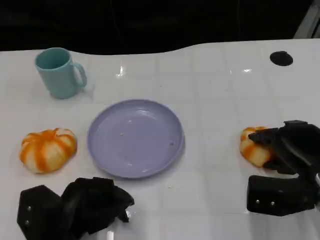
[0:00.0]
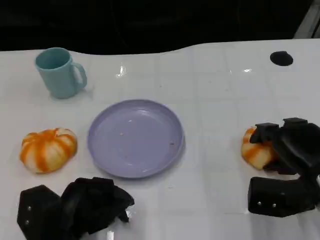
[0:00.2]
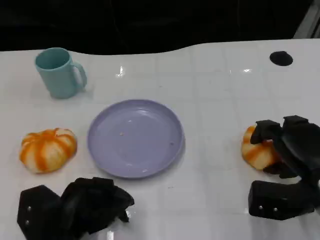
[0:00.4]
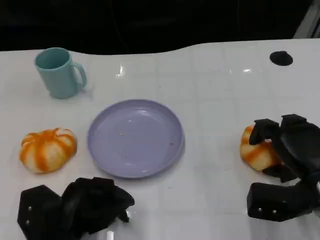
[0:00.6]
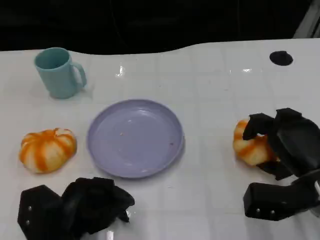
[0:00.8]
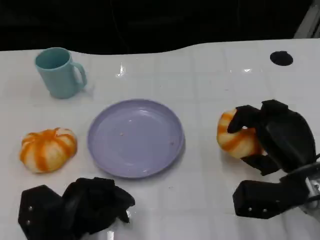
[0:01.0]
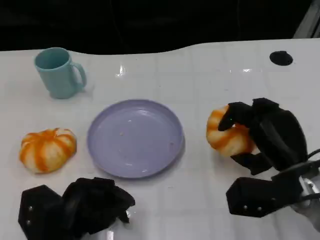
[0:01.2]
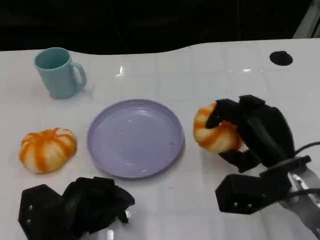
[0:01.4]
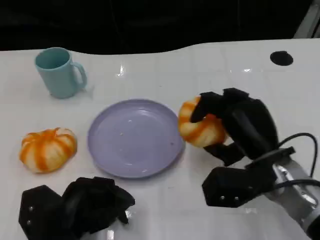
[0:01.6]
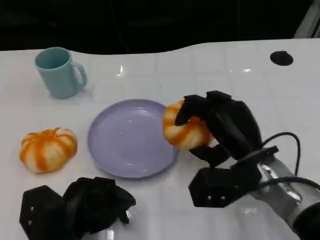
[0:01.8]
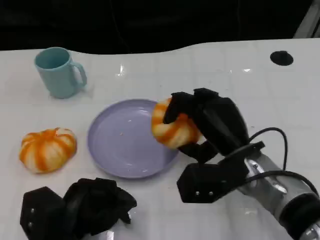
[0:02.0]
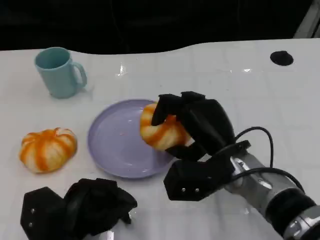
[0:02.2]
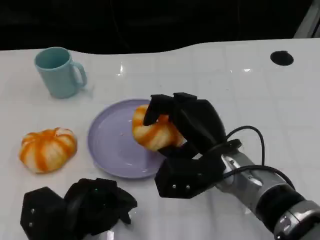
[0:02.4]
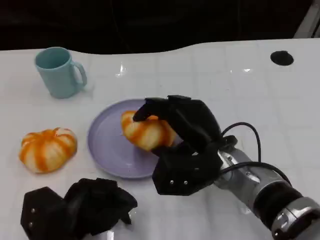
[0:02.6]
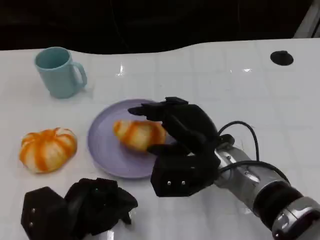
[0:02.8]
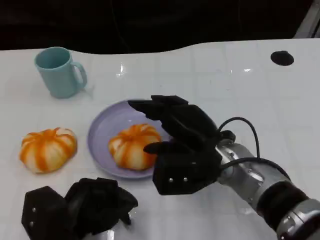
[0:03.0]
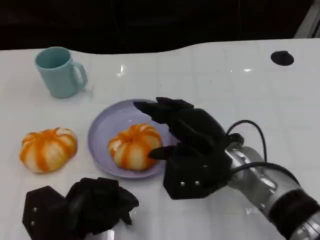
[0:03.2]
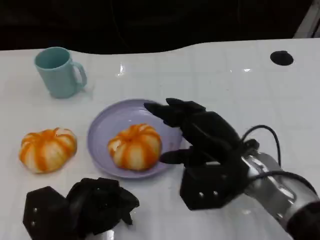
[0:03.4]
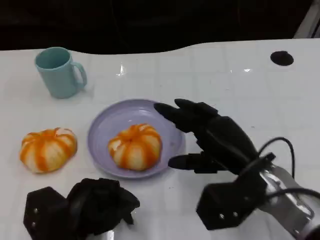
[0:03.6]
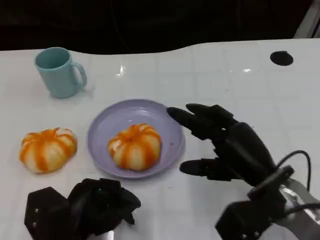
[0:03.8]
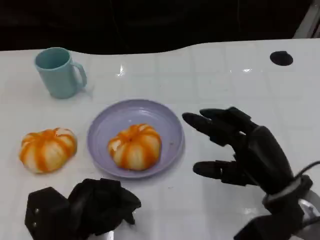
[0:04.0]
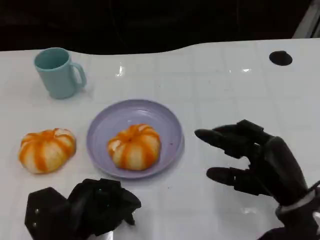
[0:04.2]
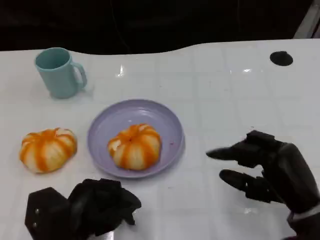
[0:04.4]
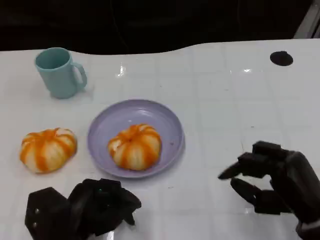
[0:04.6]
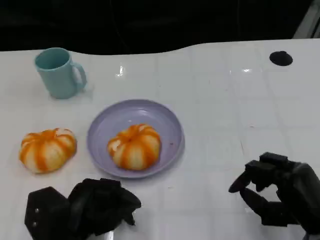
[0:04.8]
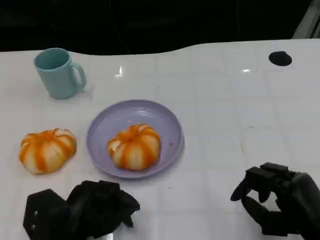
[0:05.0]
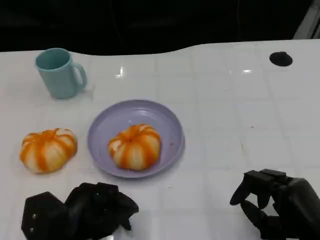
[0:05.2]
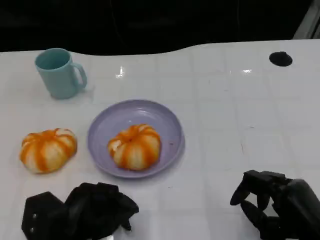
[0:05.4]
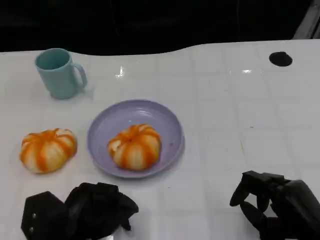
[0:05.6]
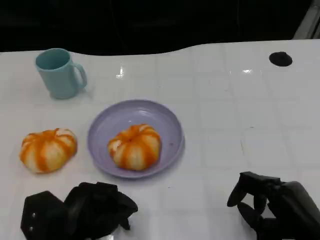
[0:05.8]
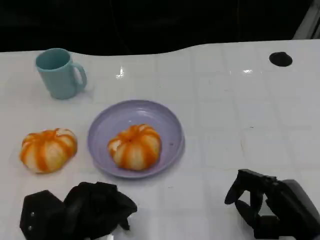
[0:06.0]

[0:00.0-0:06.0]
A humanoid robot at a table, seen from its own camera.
Task of the whole recording: Grasp the bread from the table and place it into the plate.
0:00.0 to 0:01.6: The right hand is displaced to the left by some 10 cm.
0:01.6 to 0:03.0: The right hand moves to the left, some 5 cm.
0:03.0 to 0:04.4: The right hand is displaced to the right and backward by approximately 15 cm.
0:04.4 to 0:06.0: The hands stay close to where they were, moving slightly.

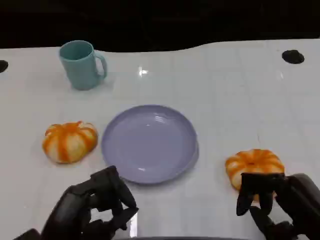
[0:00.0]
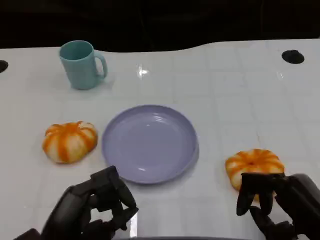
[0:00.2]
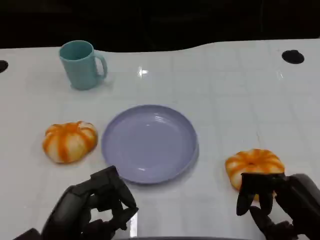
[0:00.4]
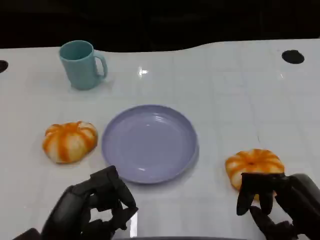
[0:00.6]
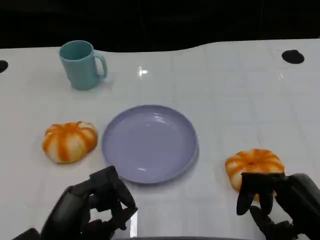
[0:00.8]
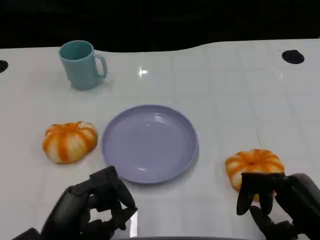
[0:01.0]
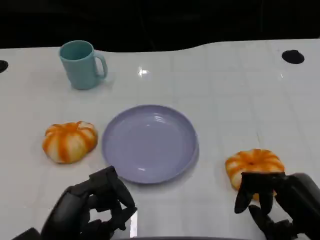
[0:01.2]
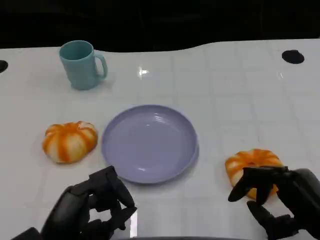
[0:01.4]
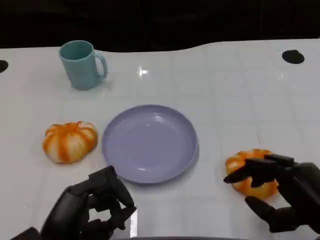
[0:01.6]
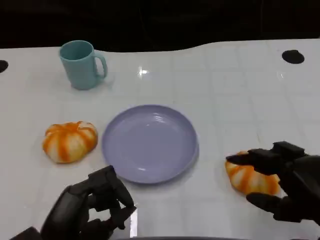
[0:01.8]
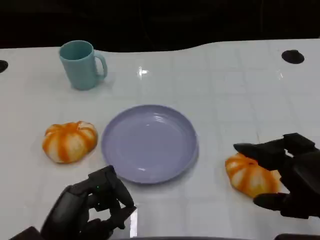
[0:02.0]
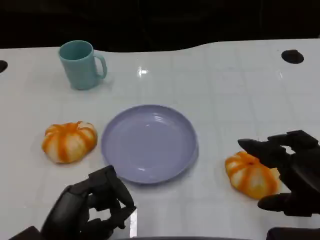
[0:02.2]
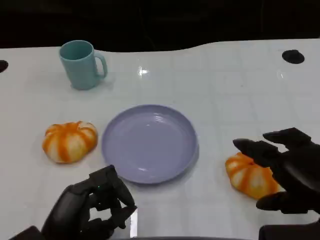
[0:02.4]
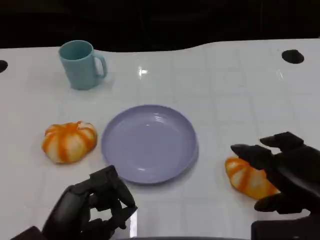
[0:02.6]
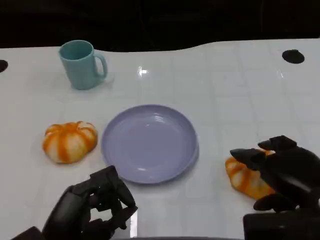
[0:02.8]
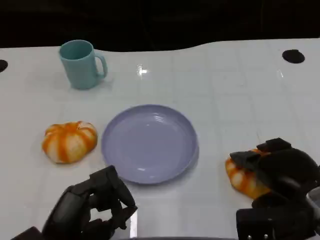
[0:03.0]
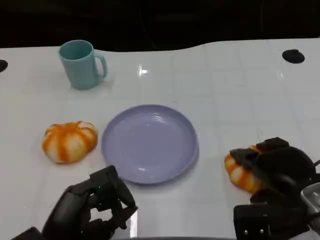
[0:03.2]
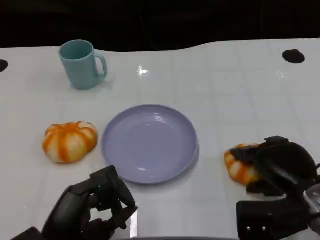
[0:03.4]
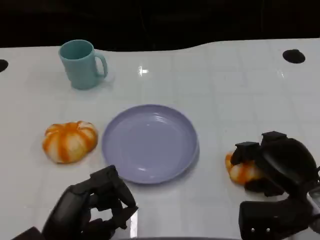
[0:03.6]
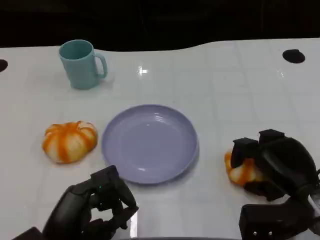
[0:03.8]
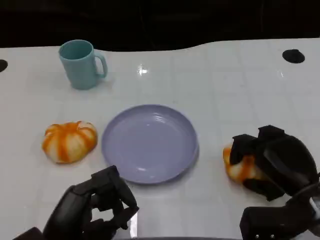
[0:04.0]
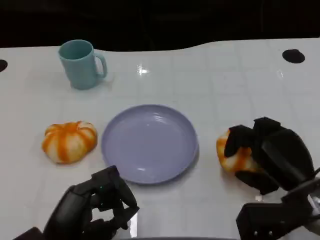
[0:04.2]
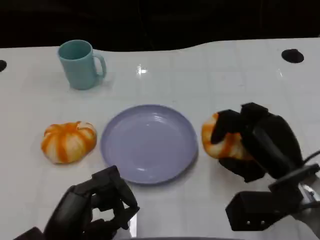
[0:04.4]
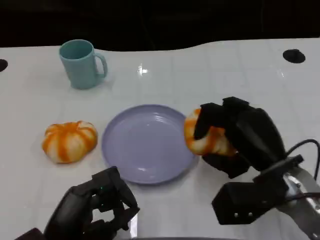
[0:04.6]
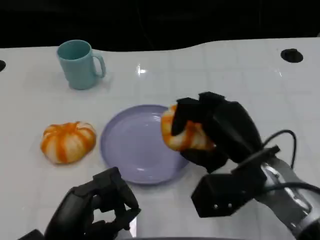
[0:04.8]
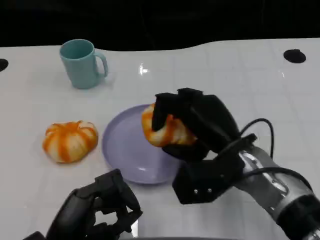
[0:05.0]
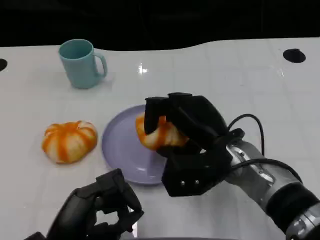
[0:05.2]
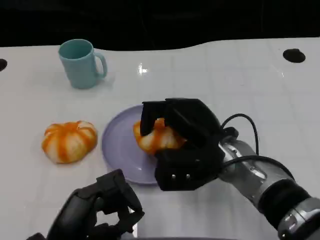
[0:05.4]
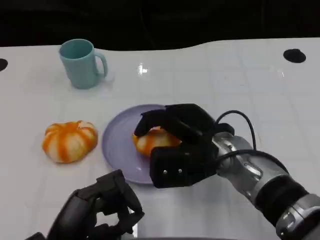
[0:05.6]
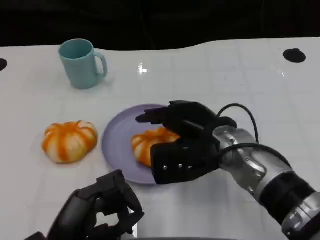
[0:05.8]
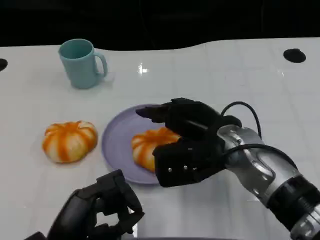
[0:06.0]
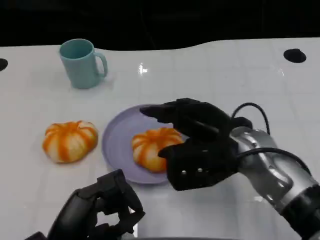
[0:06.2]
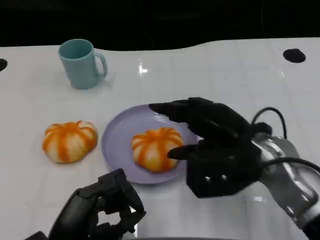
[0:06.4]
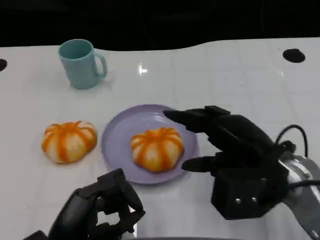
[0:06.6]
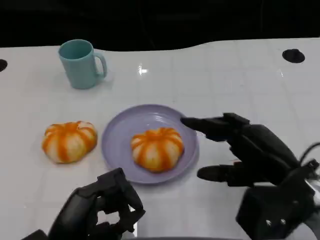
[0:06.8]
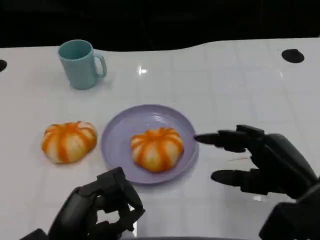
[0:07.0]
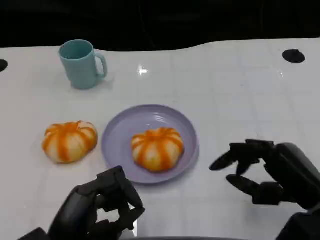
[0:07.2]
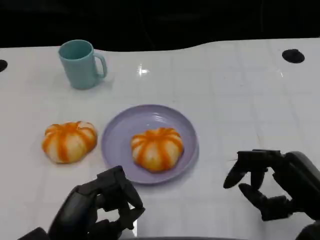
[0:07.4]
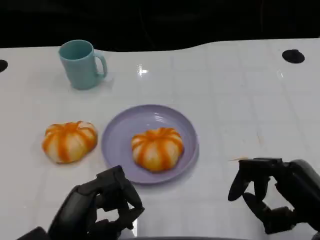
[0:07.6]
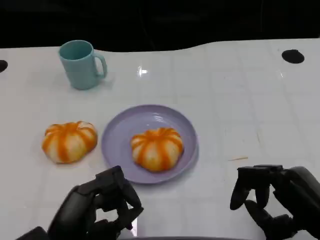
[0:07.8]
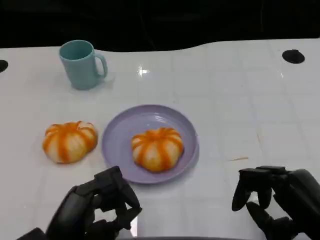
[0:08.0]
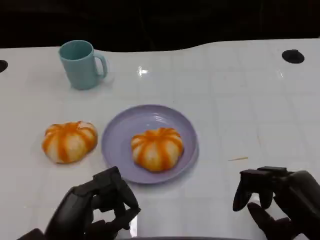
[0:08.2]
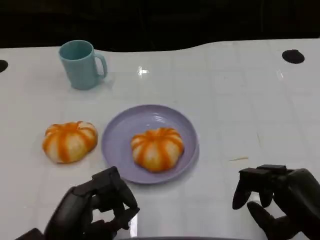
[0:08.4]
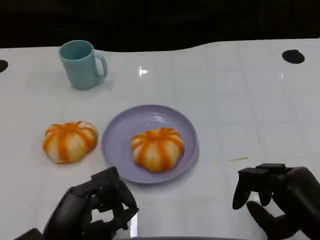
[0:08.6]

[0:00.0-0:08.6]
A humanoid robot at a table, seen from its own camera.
Task of the whole recording: Grasp the bread from the table and place it into the plate.
0:00.0 to 0:01.4: The two hands keep their place.
0:01.4 to 0:02.8: The right hand shifts by approximately 5 cm.
0:02.8 to 0:04.4: The right hand moves roughly 5 cm.
0:04.4 to 0:05.8: The right hand is displaced to the left by some 10 cm.
0:05.8 to 0:07.2: The right hand moves to the right and backward, about 15 cm.
0:07.2 to 0:08.6: The hands make only small movements.

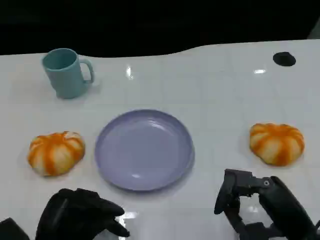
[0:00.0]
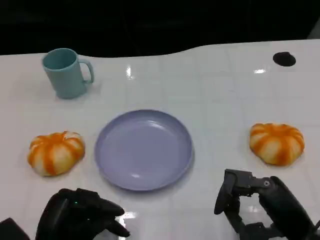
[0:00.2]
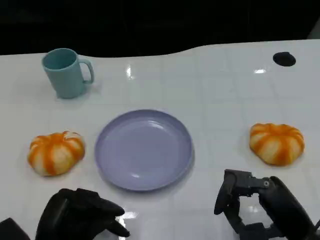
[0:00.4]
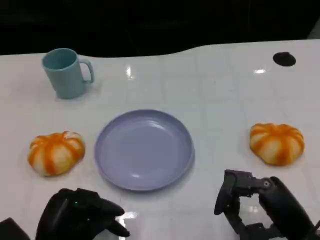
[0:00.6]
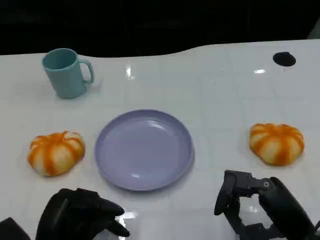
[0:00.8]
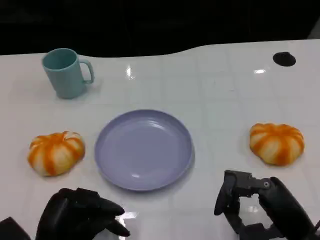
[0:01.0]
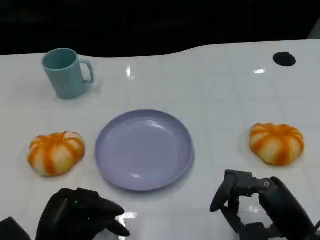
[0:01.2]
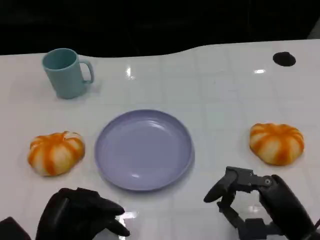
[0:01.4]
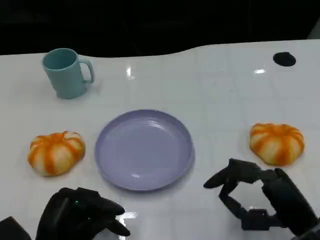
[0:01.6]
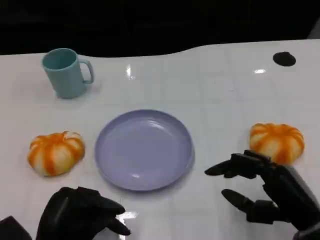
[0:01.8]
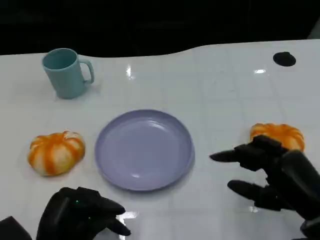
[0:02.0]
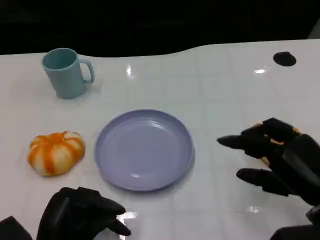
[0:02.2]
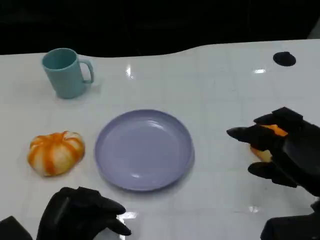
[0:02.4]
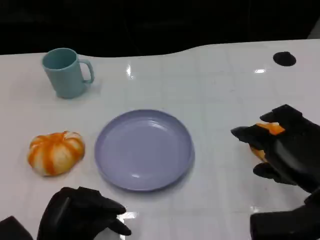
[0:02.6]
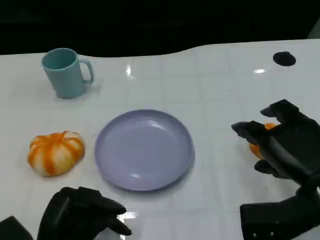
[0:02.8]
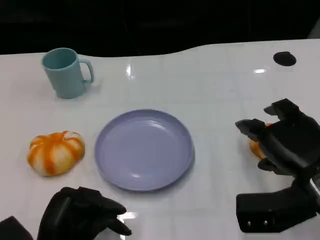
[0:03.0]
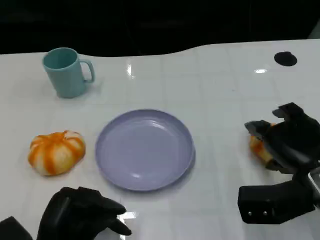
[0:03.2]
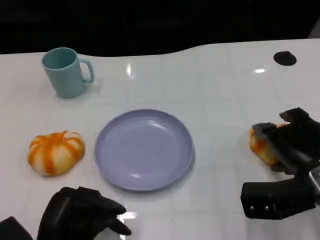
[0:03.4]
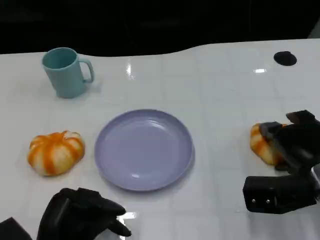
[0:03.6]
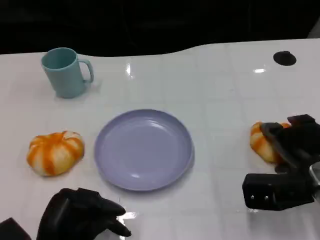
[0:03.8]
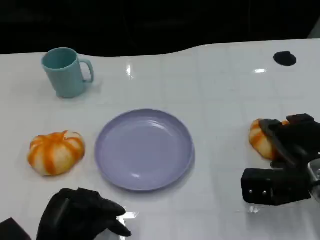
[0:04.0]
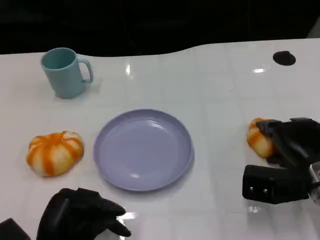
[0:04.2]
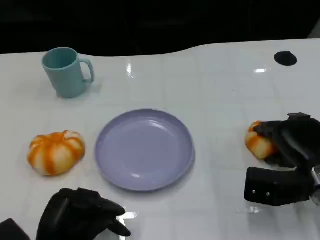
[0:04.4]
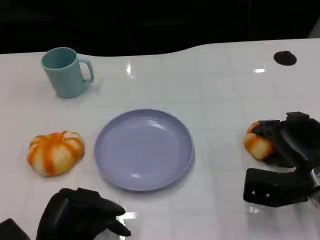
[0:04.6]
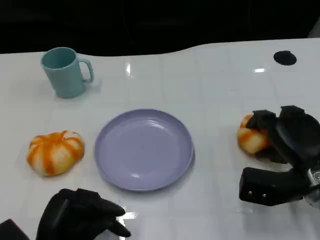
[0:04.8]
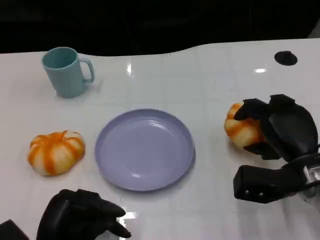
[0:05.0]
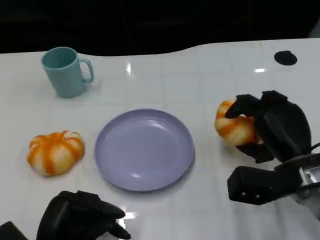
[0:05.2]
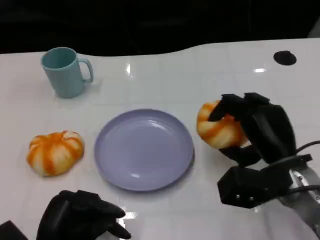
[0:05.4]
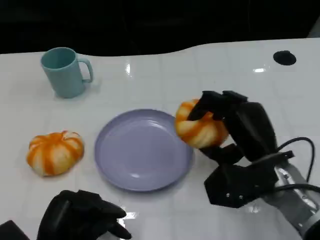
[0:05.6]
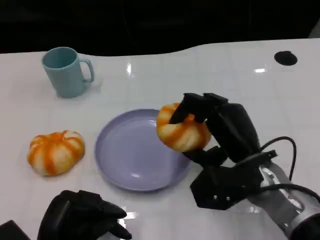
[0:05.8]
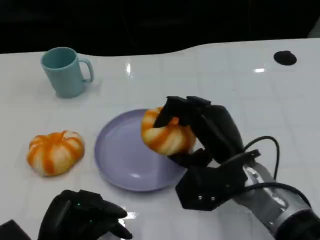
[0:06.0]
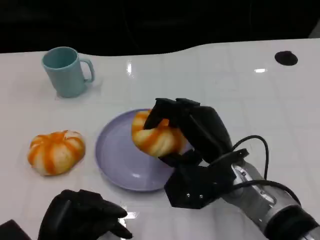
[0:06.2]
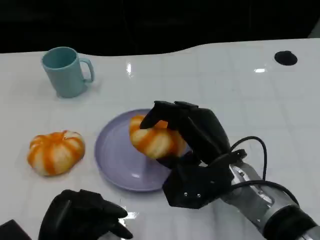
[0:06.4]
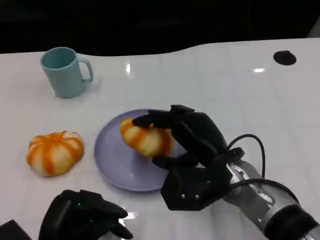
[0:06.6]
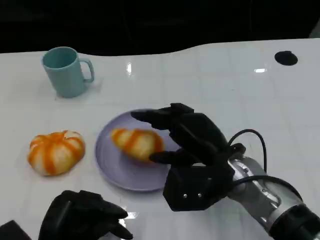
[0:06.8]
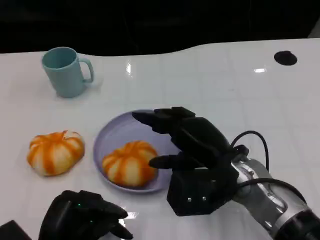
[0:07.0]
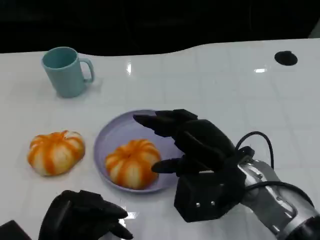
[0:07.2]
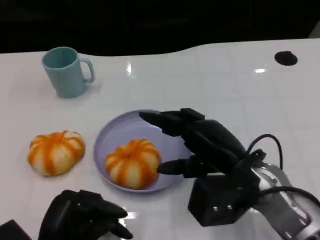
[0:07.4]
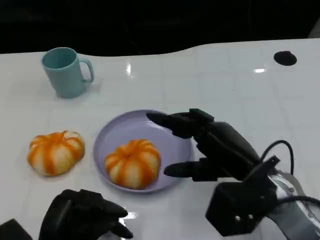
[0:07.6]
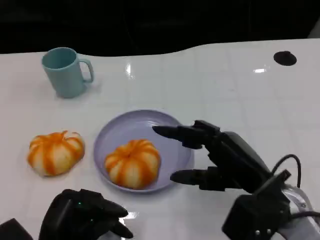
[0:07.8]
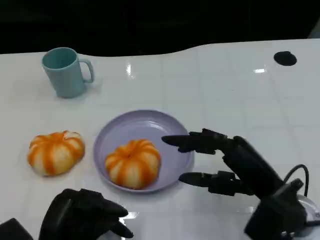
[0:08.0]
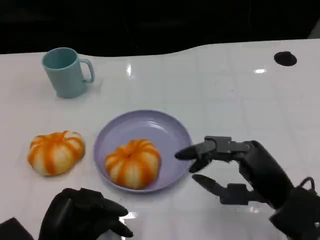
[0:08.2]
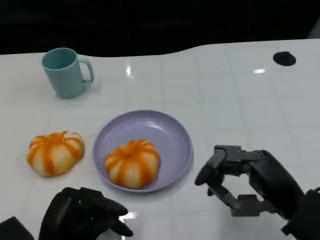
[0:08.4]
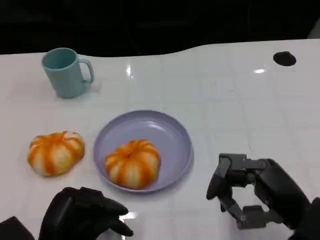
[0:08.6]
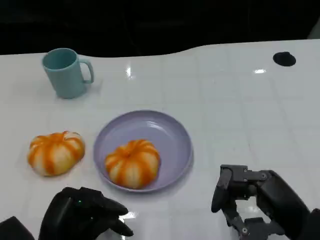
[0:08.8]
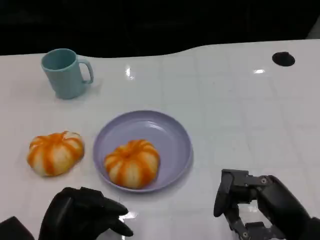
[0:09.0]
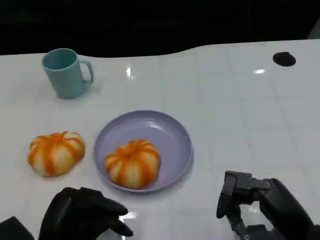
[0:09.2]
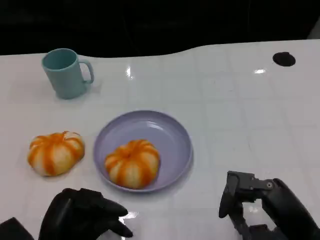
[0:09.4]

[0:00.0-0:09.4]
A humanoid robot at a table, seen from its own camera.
Task of the whole recording: Grasp the bread from the table and place it into the plate.
0:00.0 to 0:01.6: There are only small adjustments of the hands.
0:01.6 to 0:03.2: The right hand shifts about 5 cm forward.
0:03.2 to 0:04.8: The right hand changes place by approximately 5 cm.
0:04.8 to 0:06.2: The right hand heads to the left, covering some 15 cm.
0:06.2 to 0:07.8: The right hand is displaced to the right by some 5 cm.
0:07.8 to 0:09.4: The right hand is displaced backward and to the right by about 10 cm.
